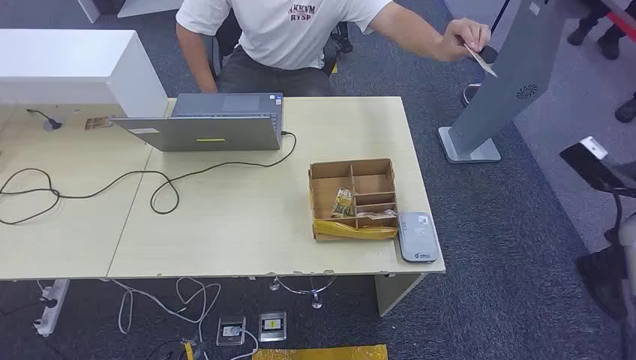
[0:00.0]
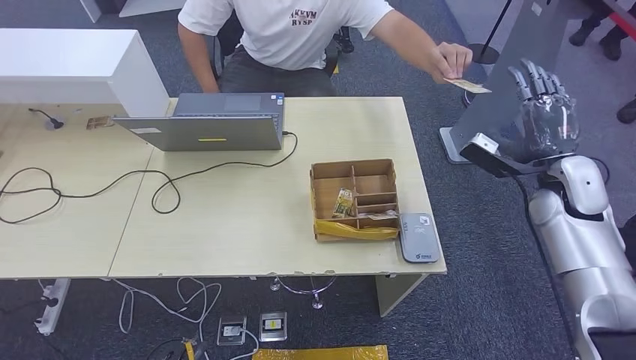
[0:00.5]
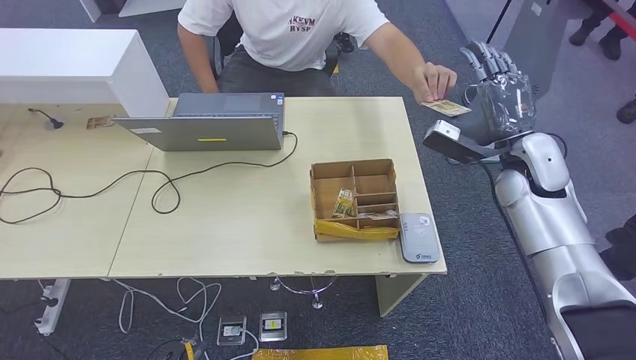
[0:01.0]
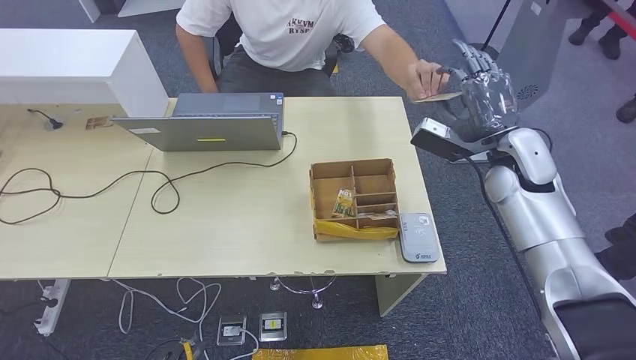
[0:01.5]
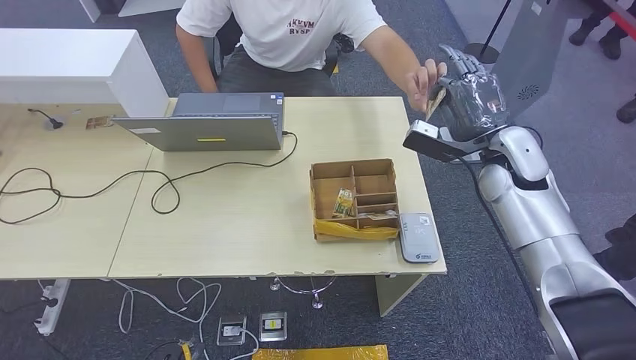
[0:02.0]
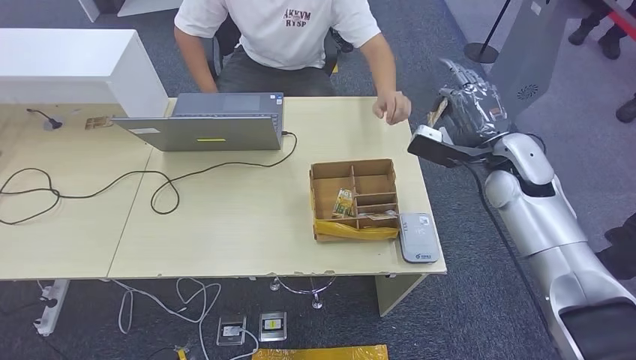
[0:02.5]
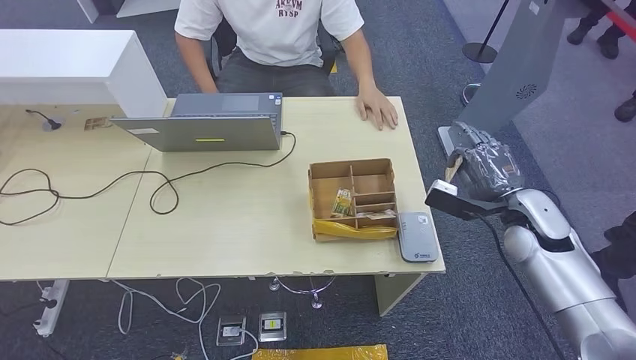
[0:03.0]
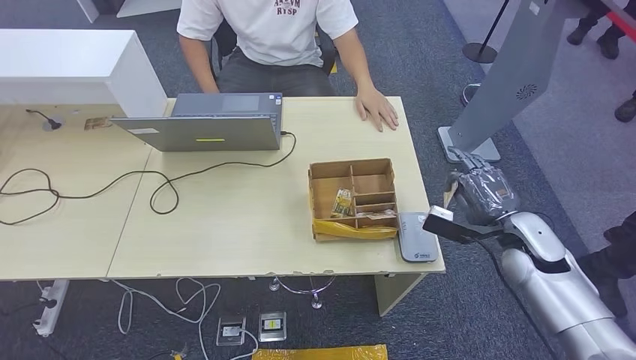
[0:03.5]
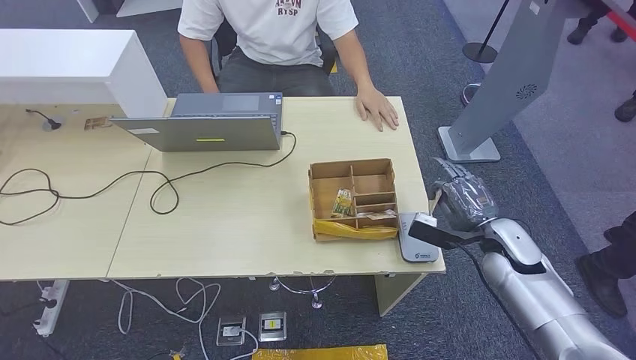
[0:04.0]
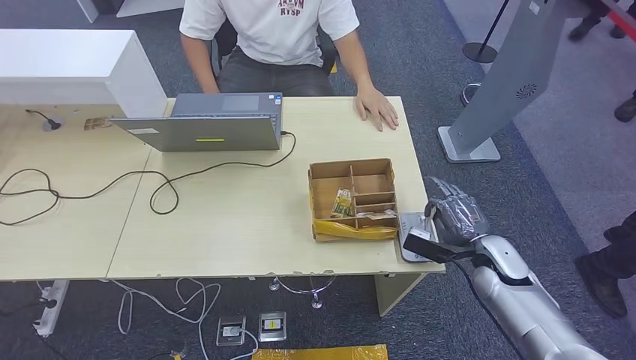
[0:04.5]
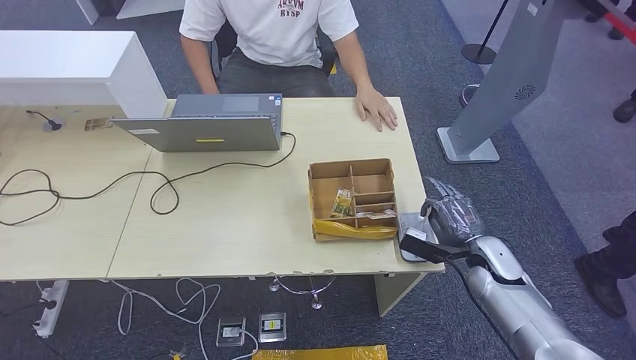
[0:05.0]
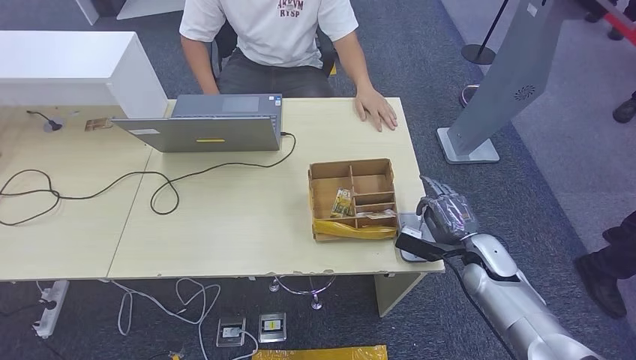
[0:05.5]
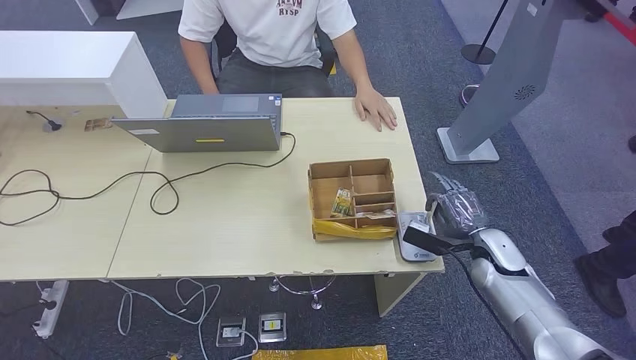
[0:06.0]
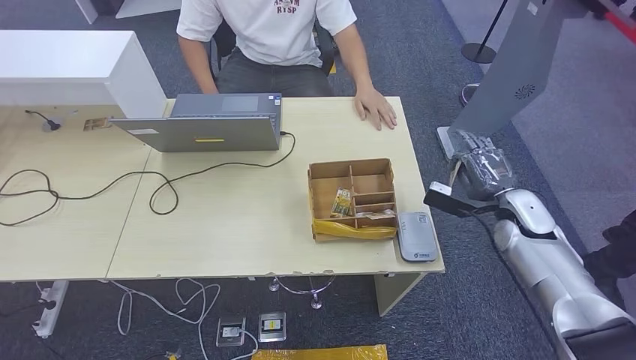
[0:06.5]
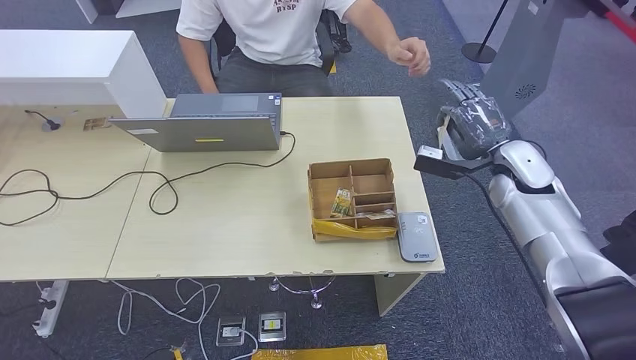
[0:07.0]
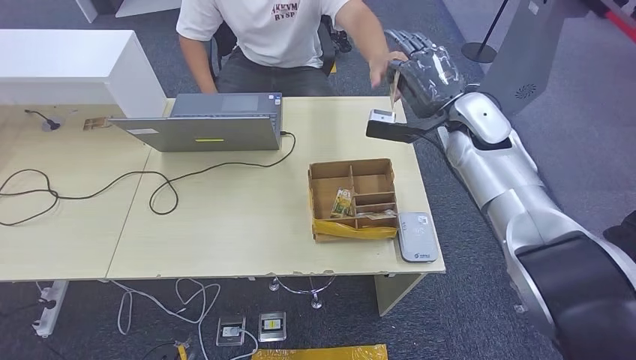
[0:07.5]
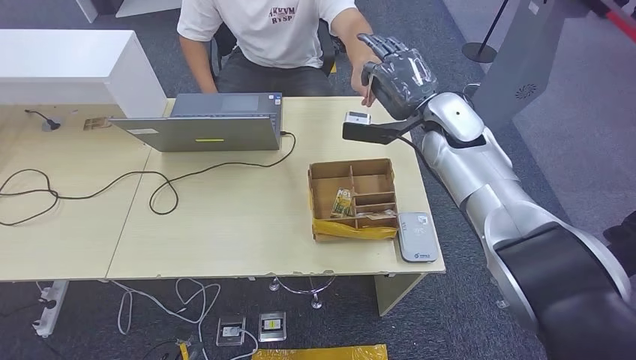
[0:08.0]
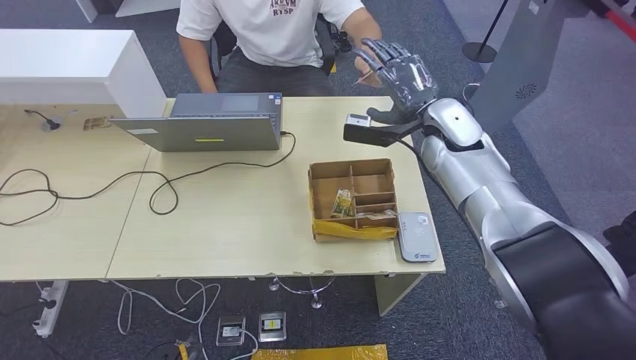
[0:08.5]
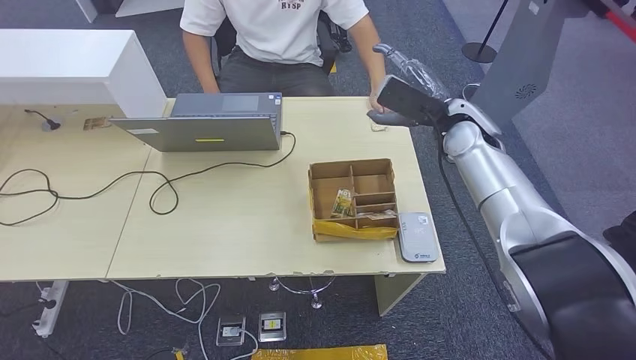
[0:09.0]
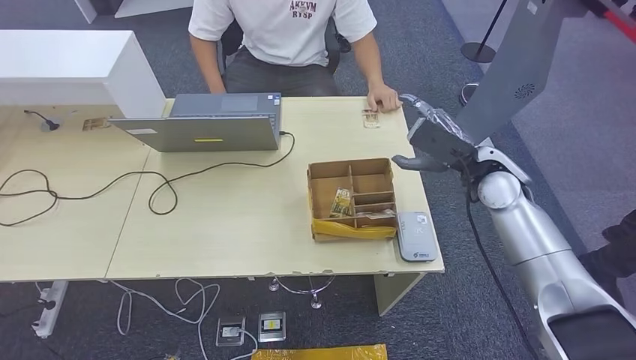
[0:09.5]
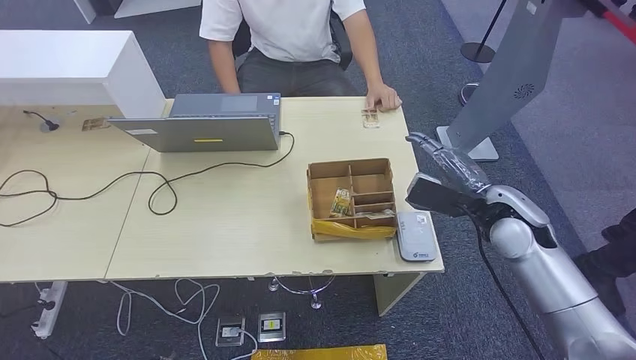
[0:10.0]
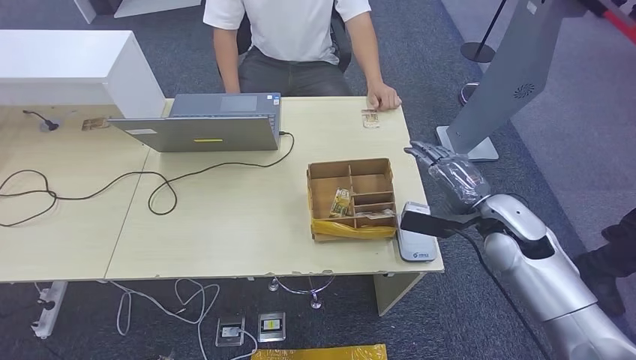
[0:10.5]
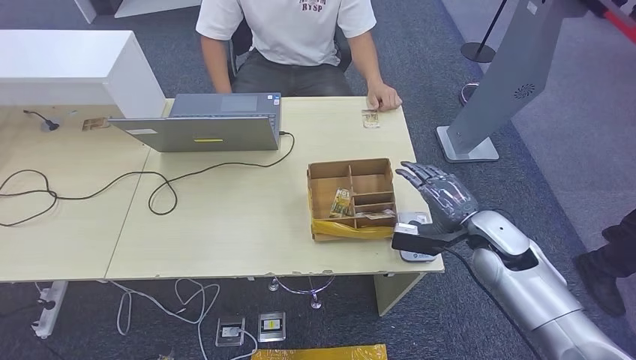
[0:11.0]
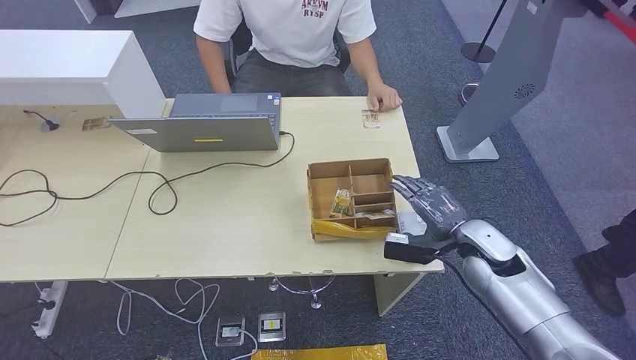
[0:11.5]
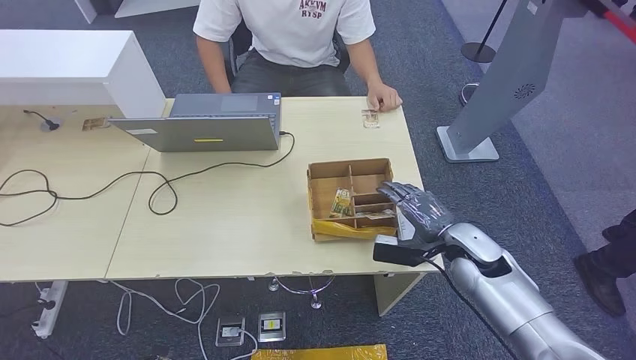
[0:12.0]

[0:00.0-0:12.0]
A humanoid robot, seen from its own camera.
Step, 0:00.0 to 0:02.0: Take the ID card from the person's hand.
Step, 0:02.5 to 0:04.5: Place the ID card on the card reader.
Step, 0:05.0 to 0:08.5: Hand the ID card to the person.
0:02.0 to 0:04.0: The right hand moves downward and backward, approximately 15 cm.
0:04.0 to 0:06.0: The hands move only a little.
0:06.0 to 0:08.0: The right hand is displaced upward, forward and to the left by roughly 30 cm.
0:08.0 to 0:10.0: The right hand travels backward, downward and to the right by about 15 cm.
0:10.0 to 0:12.0: The right hand goes about 10 cm downward.

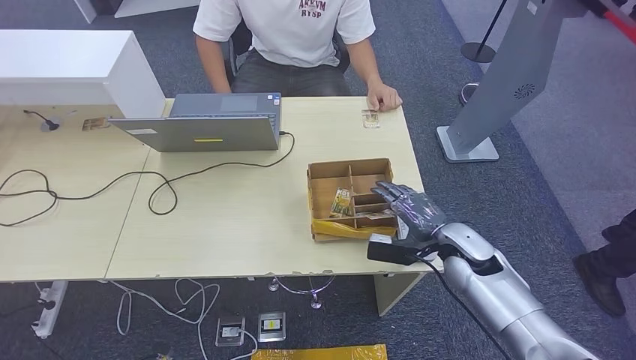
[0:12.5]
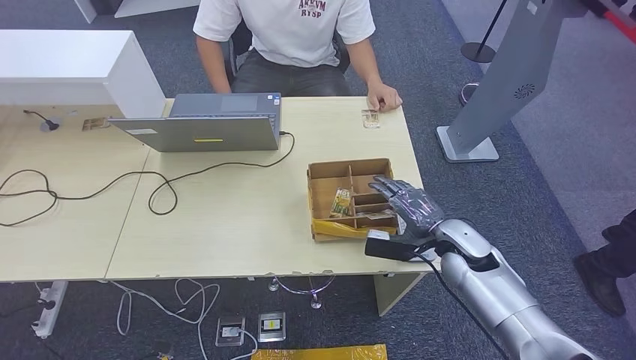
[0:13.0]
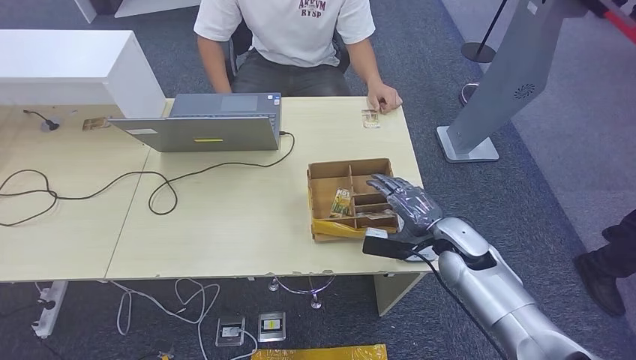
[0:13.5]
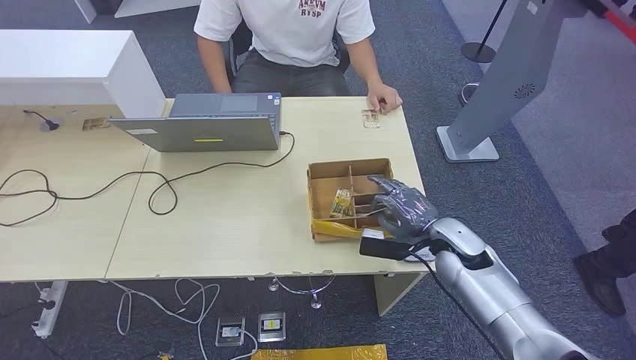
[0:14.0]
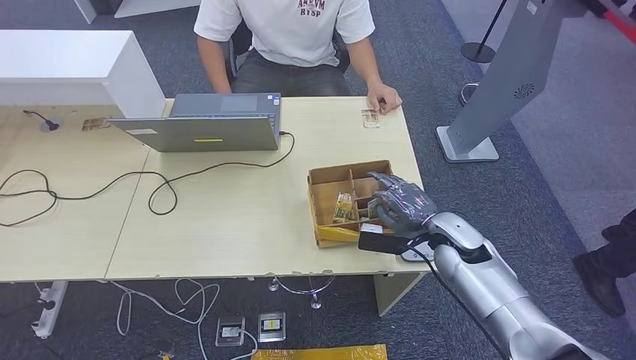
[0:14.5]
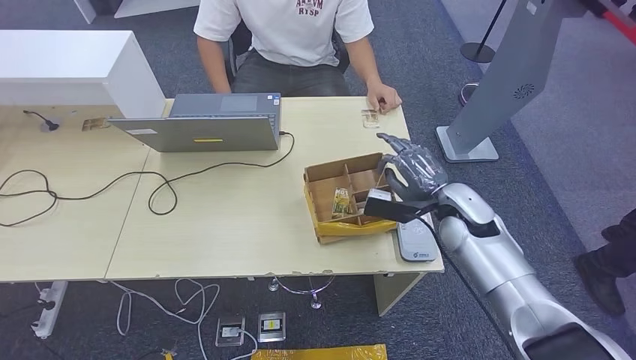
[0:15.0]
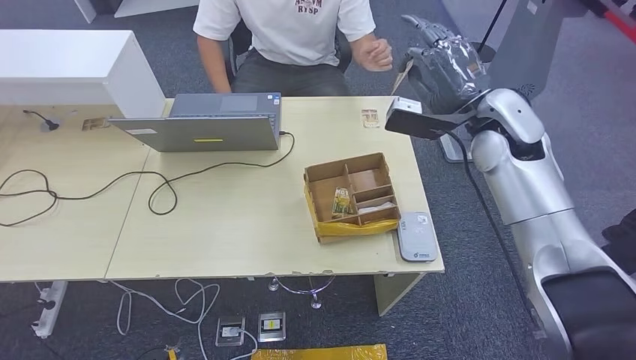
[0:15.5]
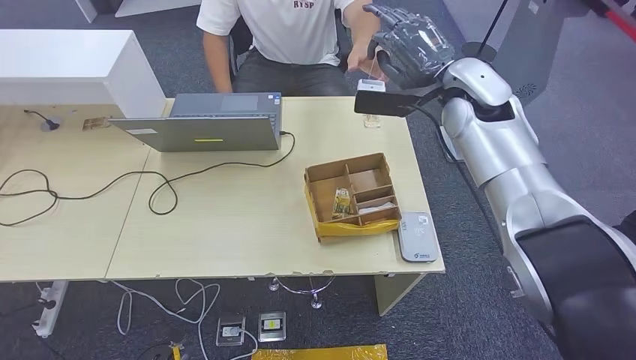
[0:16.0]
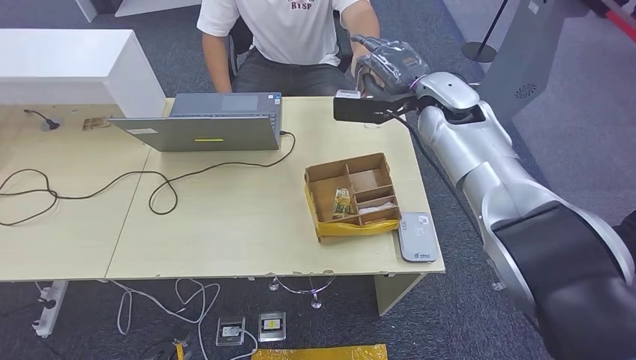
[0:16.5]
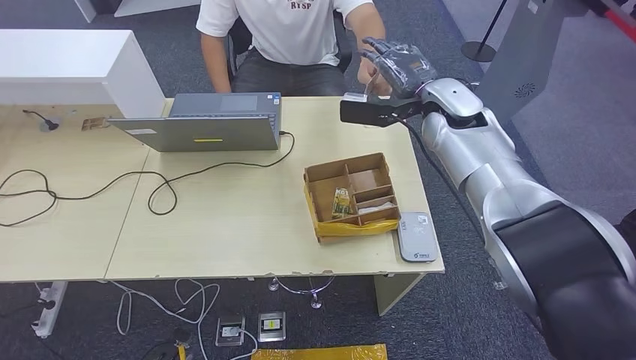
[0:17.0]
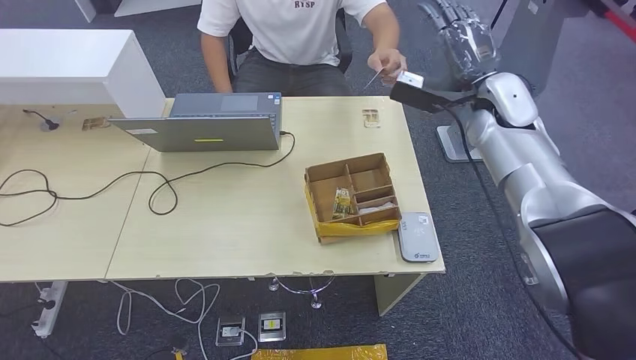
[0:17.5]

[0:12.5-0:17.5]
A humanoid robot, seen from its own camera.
Step, 0:13.0 to 0:15.0: Pick up the room key from the key card box.
Step, 0:15.5 to 0:17.5: Hand the room key to the person.
0:12.5 to 0:15.0: The right hand travels upward and forward by some 5 cm.
0:15.0 to 0:17.5: The right hand heads upward and forward, covering roughly 20 cm.
